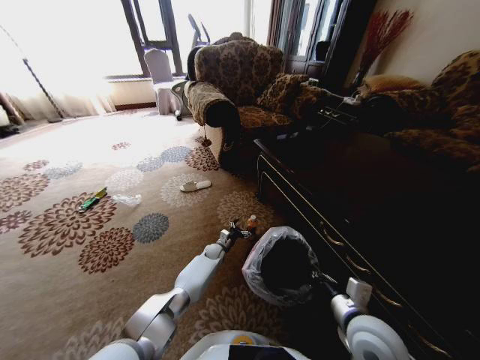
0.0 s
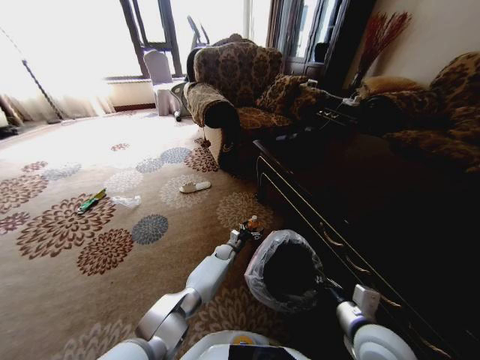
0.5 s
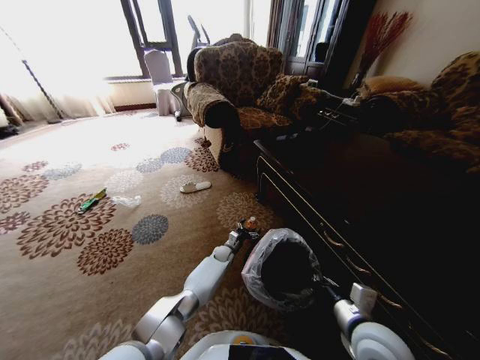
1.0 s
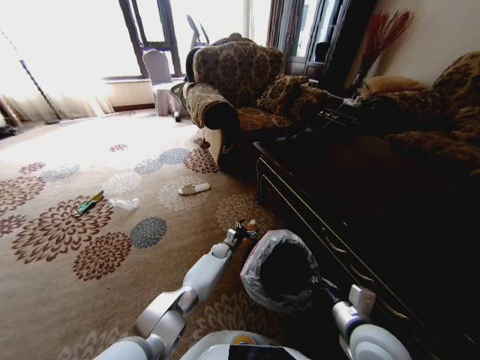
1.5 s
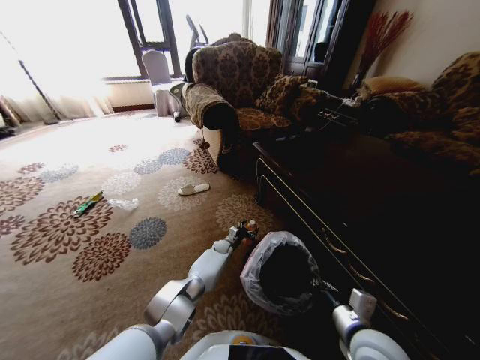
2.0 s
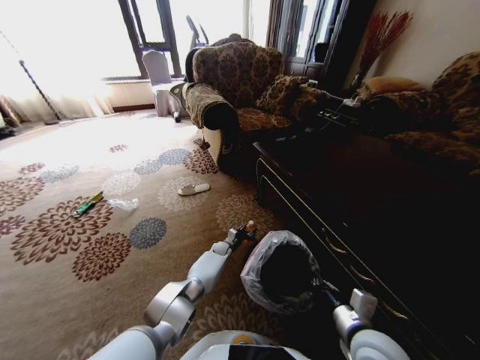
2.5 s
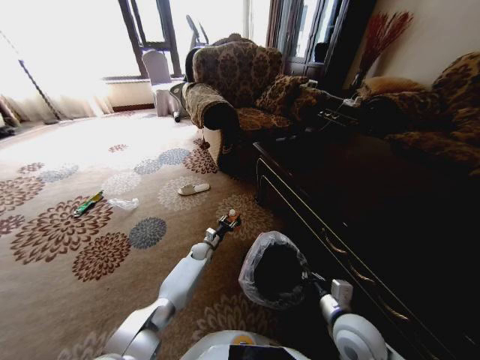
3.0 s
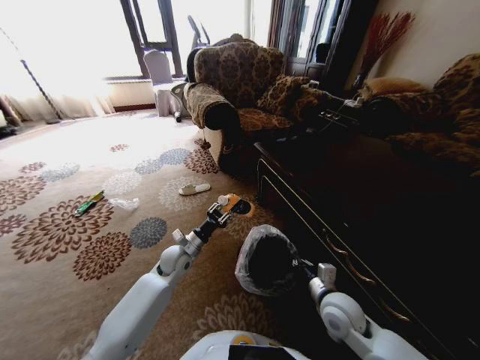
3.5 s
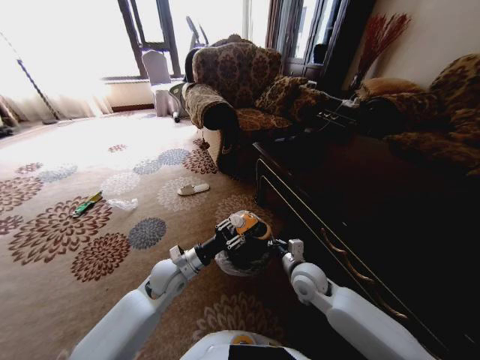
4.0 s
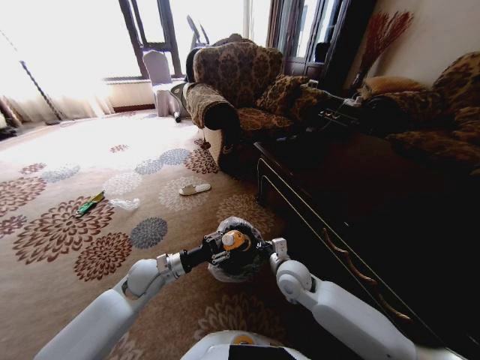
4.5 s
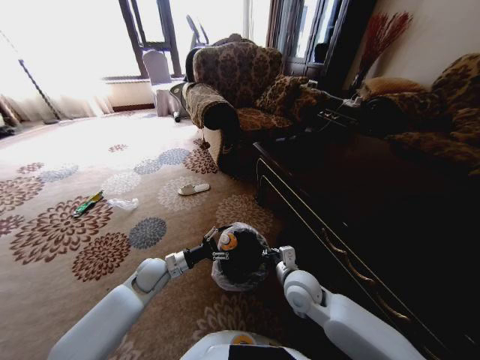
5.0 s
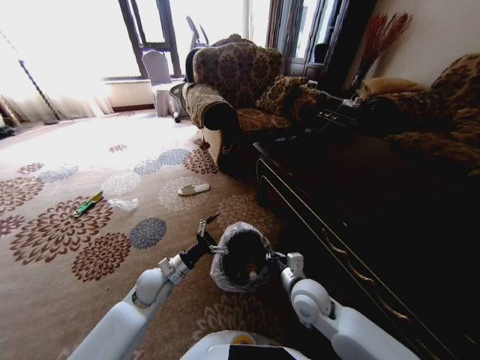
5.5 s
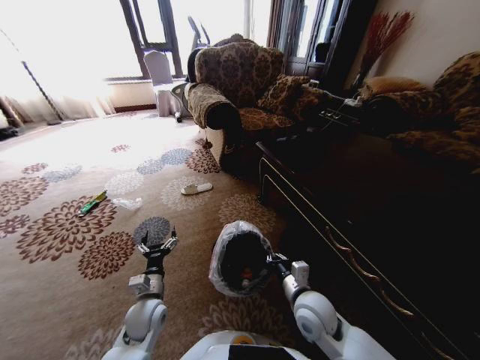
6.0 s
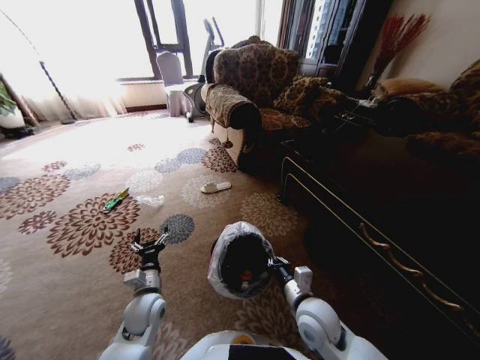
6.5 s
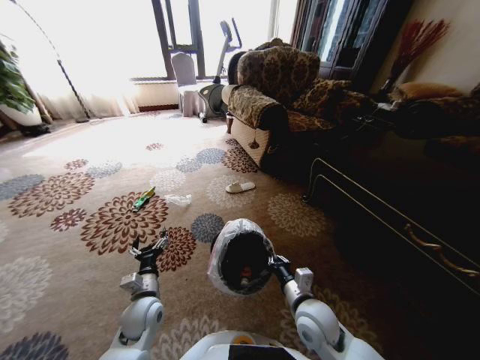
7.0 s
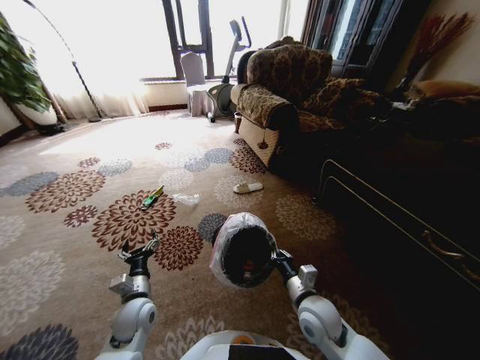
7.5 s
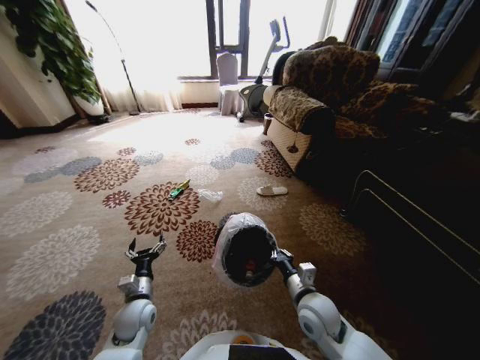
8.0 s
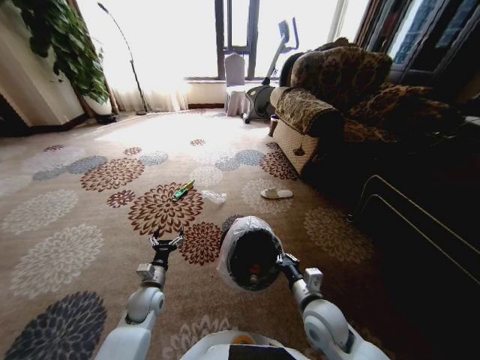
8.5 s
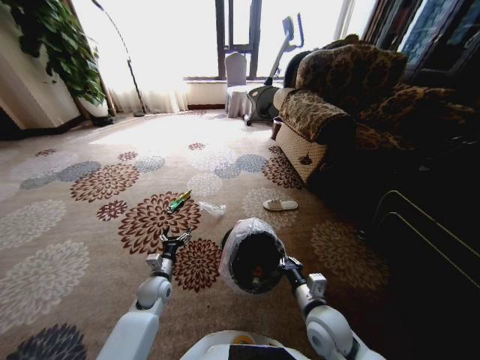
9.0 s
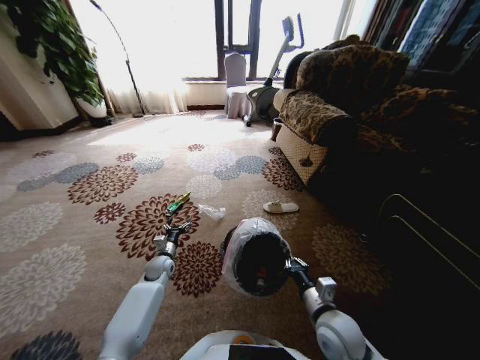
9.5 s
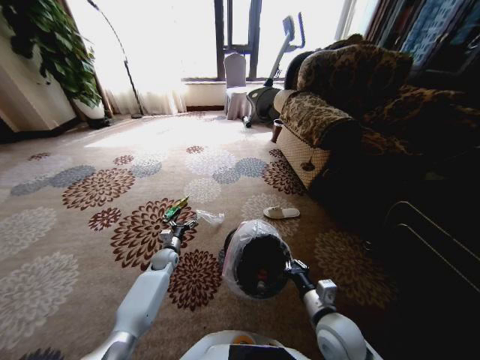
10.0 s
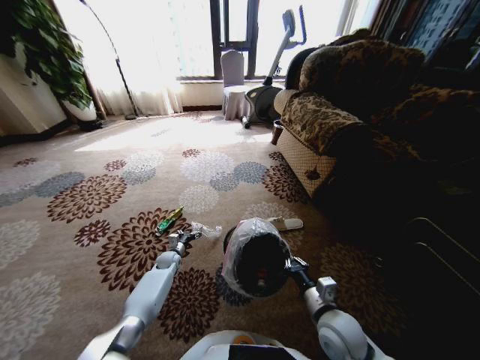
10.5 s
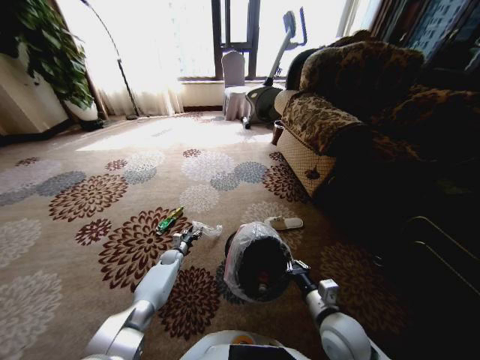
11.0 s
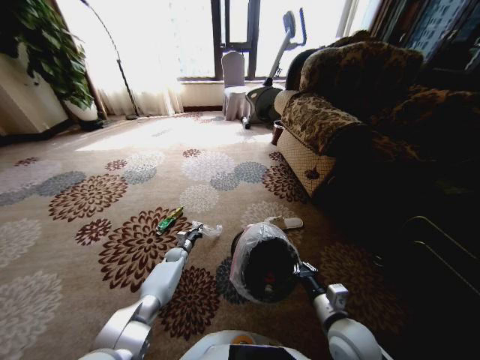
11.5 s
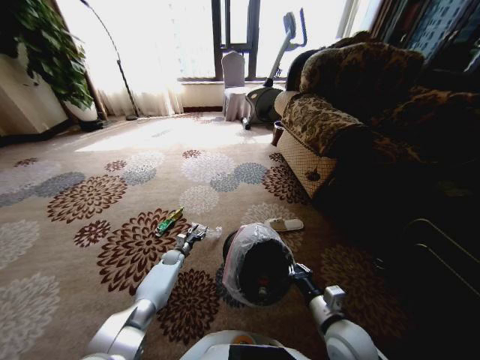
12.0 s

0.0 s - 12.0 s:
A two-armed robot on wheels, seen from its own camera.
Task of the whole recording: Pick up the trash from the ground and place it into the trash bin.
0.0 s - 2.0 s: There are only small adjustments of the grippers.
2.0 s - 4.0 s: The left gripper is displaced upward, backward and to the left by roughly 35 cm, and closes up. Meanwhile the right gripper travels forward and to the left by roughly 20 cm.
4.0 s - 6.0 s: The left gripper goes some 10 cm backward, downward and to the left, and opens. Meanwhile the right gripper travels backward by approximately 10 cm.
8.0 s - 10.0 s: The right gripper changes place by approximately 5 cm; the left gripper travels forward by about 20 cm.
10.0 s - 12.0 s: The left gripper travels downward by approximately 10 cm, and closes up.

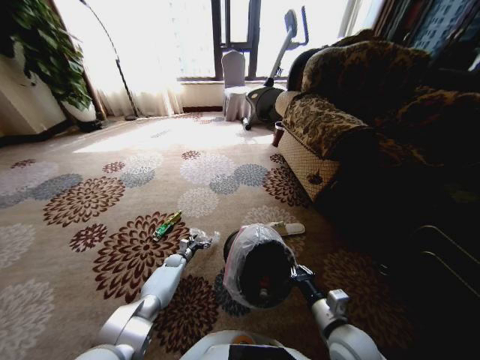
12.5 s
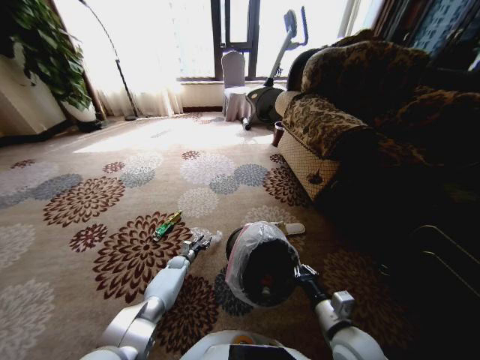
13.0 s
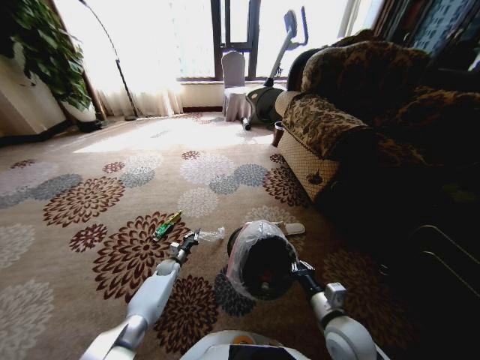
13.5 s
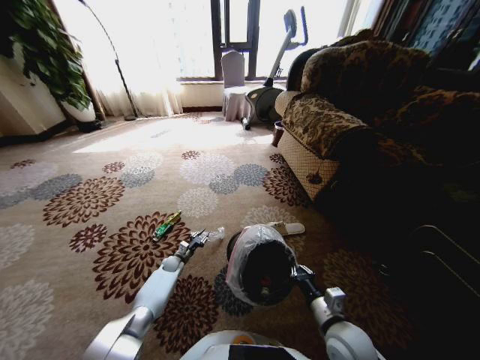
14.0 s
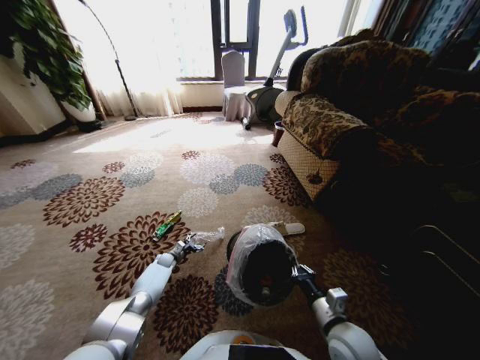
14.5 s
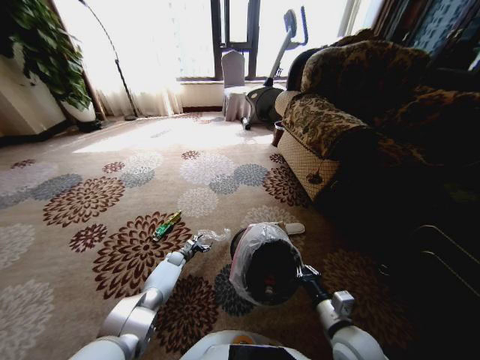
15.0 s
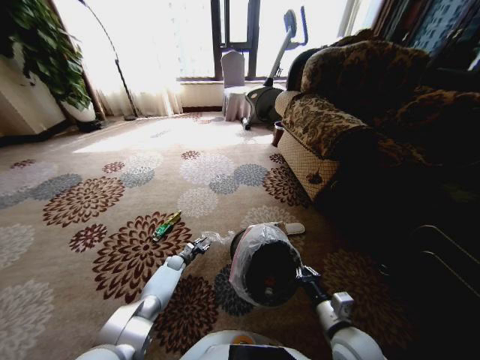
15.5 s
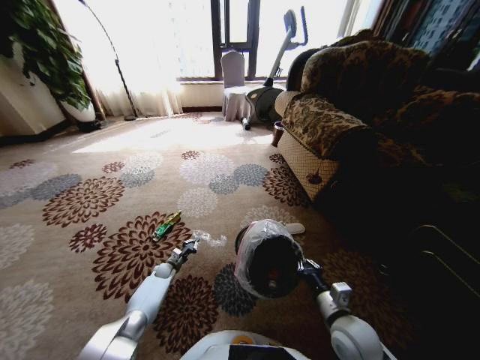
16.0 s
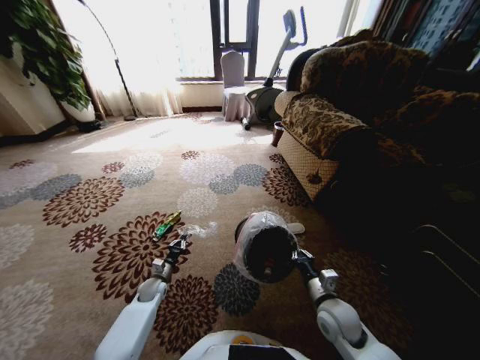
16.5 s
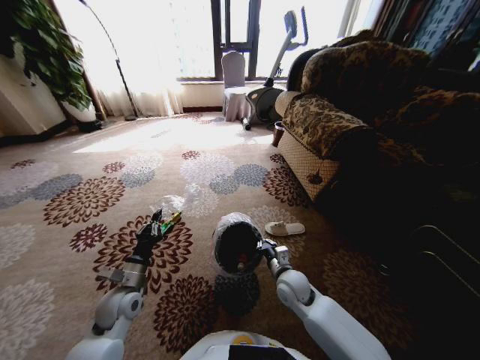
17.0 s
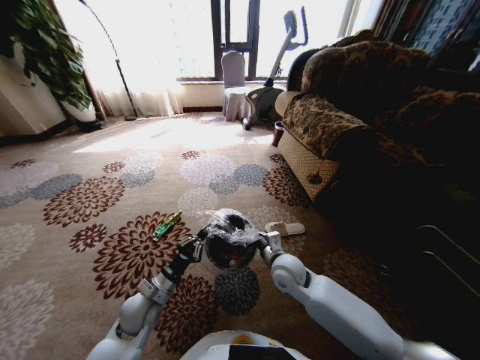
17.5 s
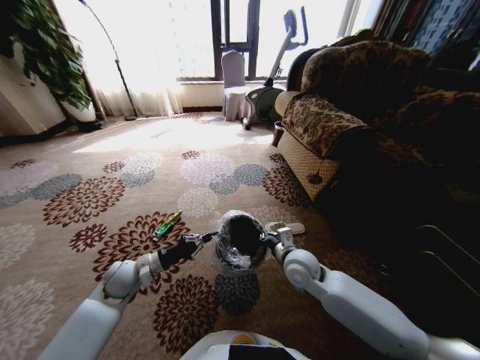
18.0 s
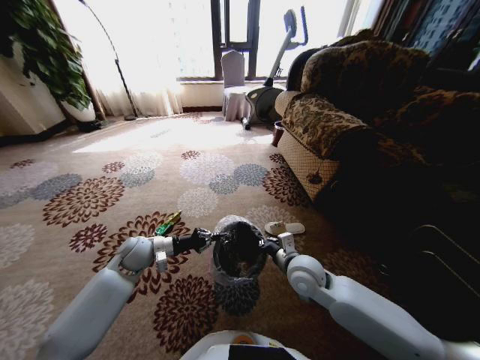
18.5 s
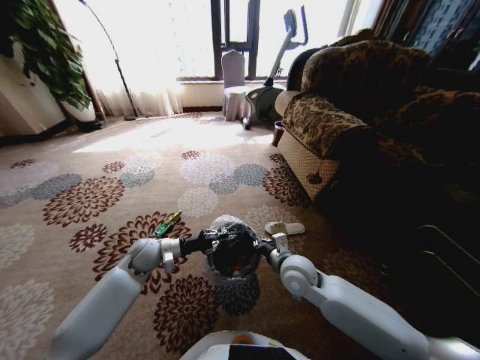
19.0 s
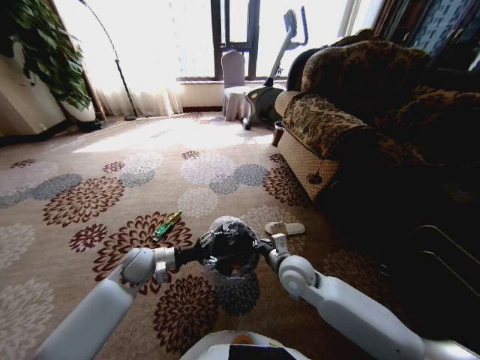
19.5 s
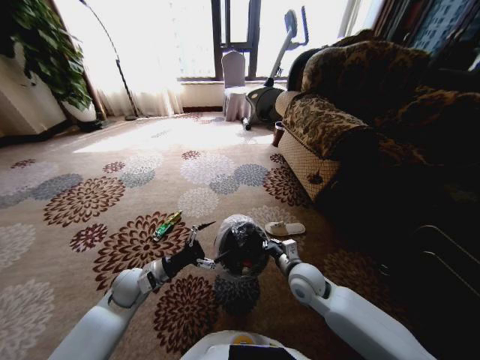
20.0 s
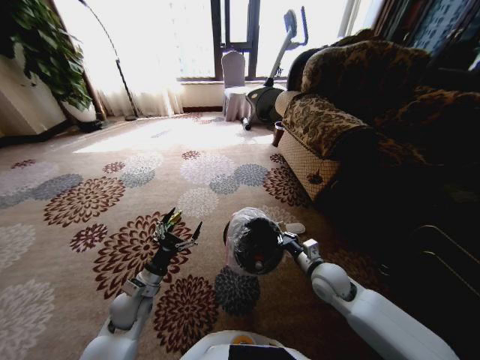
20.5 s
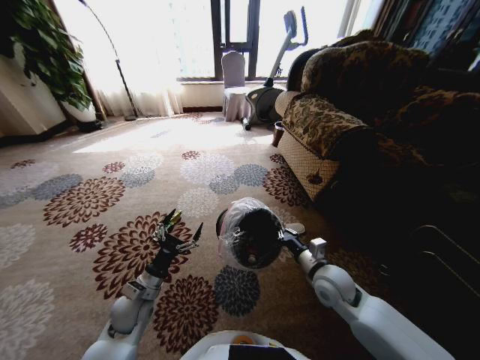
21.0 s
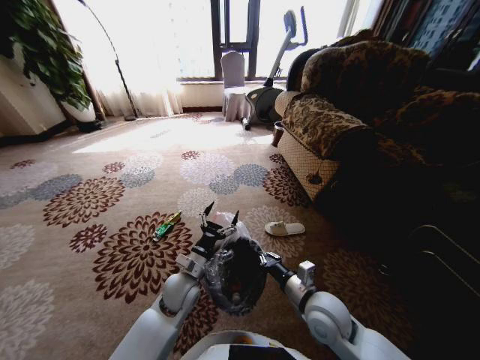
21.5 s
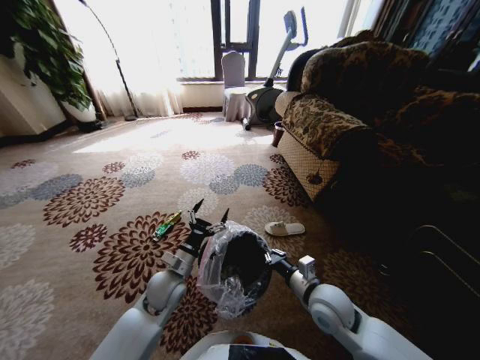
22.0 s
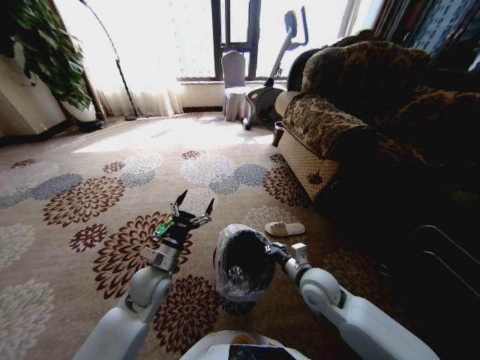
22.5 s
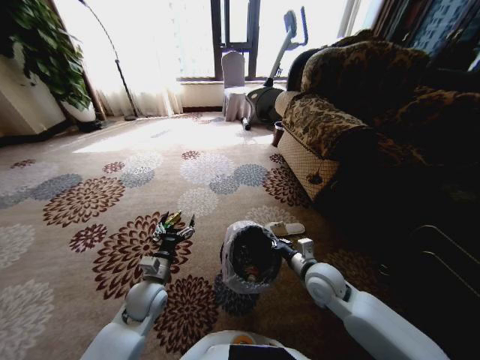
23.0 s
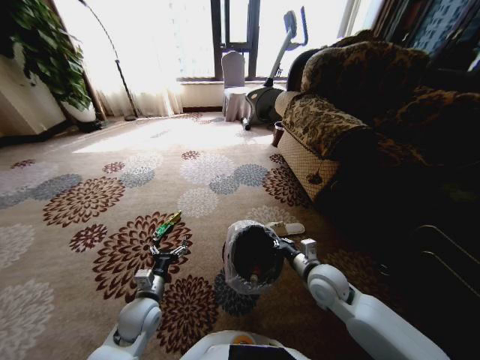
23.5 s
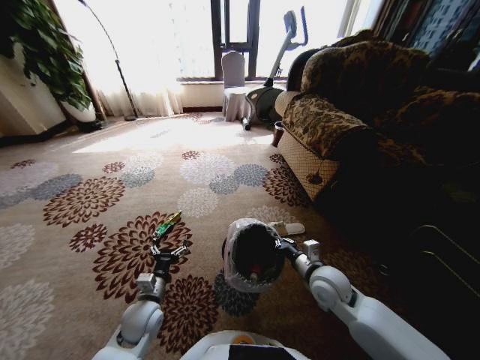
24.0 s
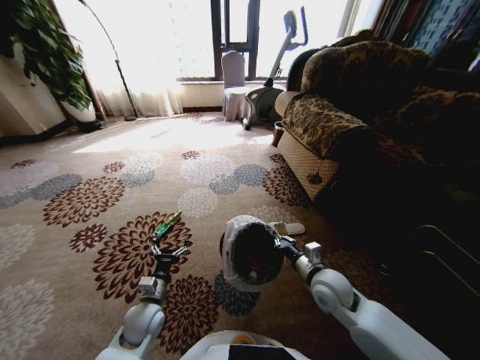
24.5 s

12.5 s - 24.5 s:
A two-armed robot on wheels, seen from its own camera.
Task of the whole recording: Pick up the trash from the ground and place it into the trash bin.
12.5 s - 14.5 s: The left gripper closes, then opens again.
14.5 s - 16.5 s: The right gripper travels forward by approximately 5 cm. Meanwhile the left gripper heads backward and upward, covering about 15 cm, and closes its fingers.
16.5 s - 18.5 s: The left gripper swings up and down, roughly 20 cm each way, with 2 reversals. The right gripper heads upward, to the left and forward, covering about 15 cm.
18.5 s - 20.5 s: The left gripper shifts approximately 15 cm backward and downward, and opens its fingers. The right gripper goes roughly 10 cm to the right.
20.5 s - 22.5 s: The left gripper moves upward and to the right, roughly 10 cm. The right gripper moves approximately 10 cm backward and comes back.
22.5 s - 24.5 s: The left gripper travels downward and backward by some 10 cm.

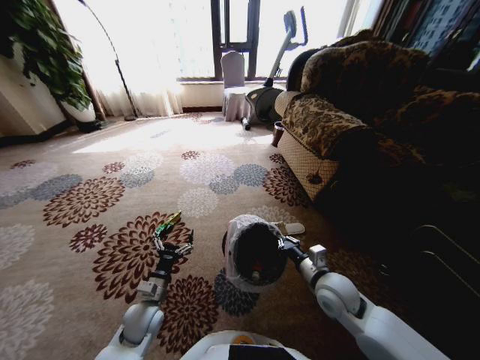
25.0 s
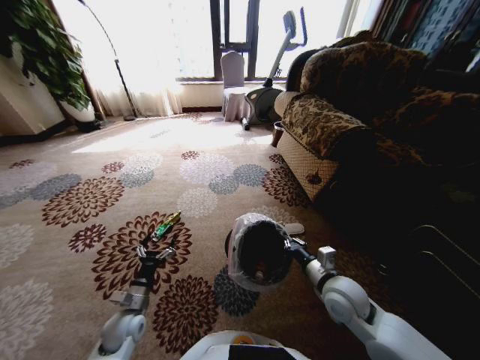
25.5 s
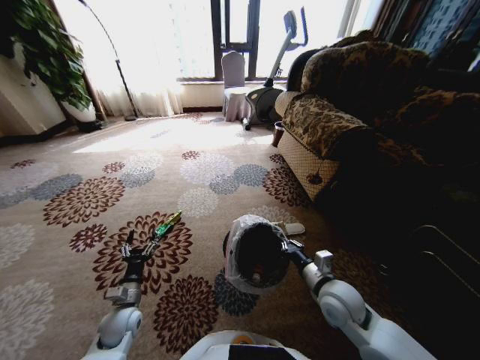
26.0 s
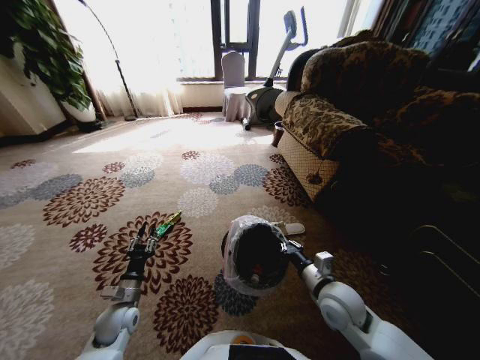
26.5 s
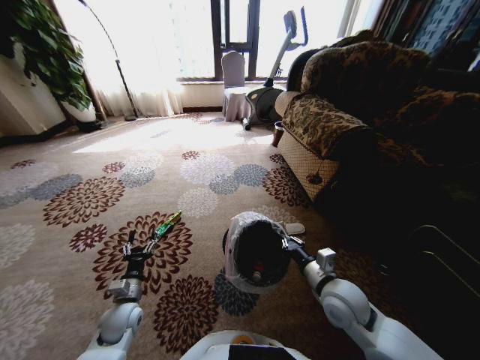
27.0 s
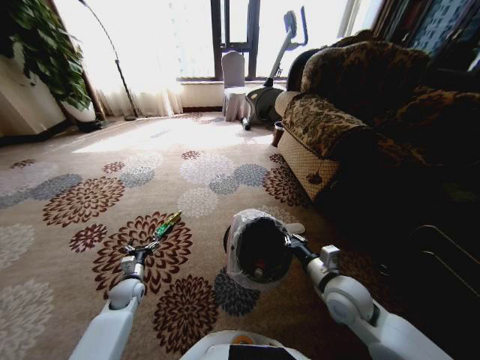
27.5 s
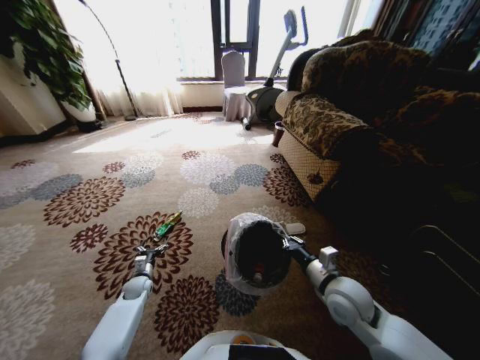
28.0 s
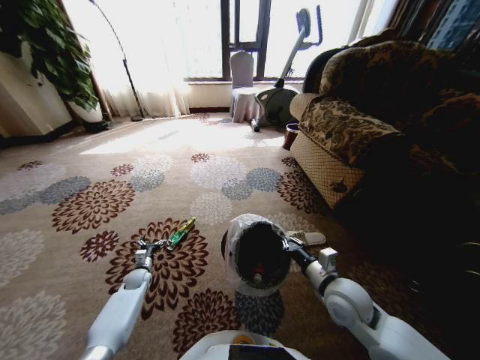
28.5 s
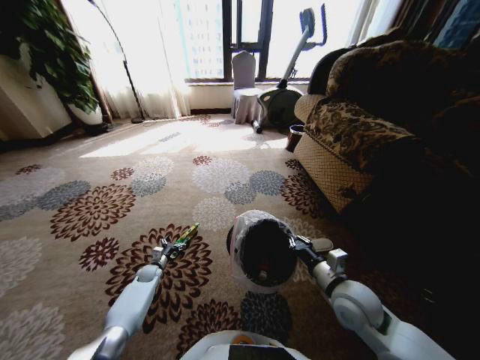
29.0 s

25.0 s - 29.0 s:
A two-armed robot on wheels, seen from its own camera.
Task of the whole recording: Pick up the trash from the ground and place it into the trash bin.
25.0 s - 27.0 s: The left gripper travels to the left by some 5 cm.
27.0 s - 29.0 s: The left gripper goes some 20 cm forward and downward.
